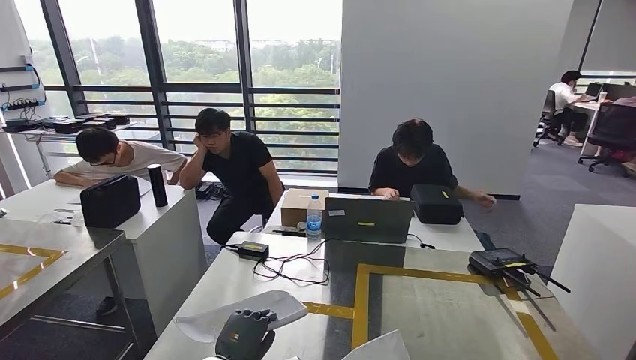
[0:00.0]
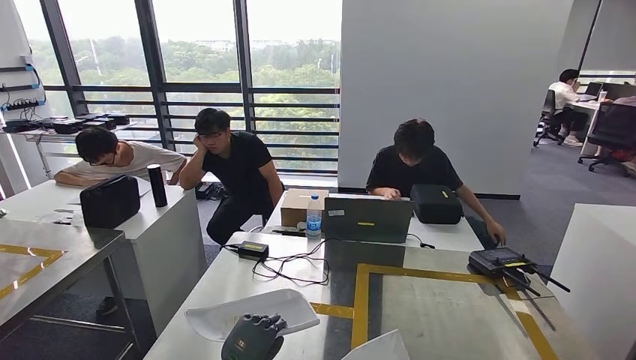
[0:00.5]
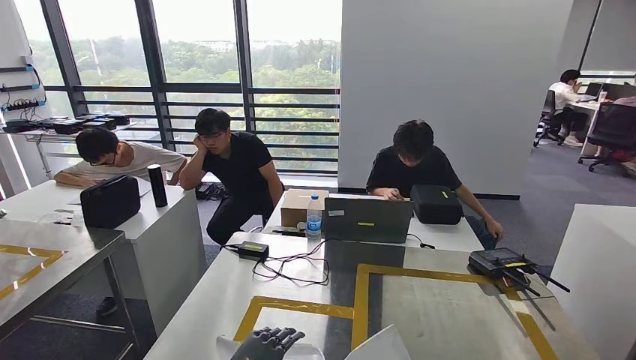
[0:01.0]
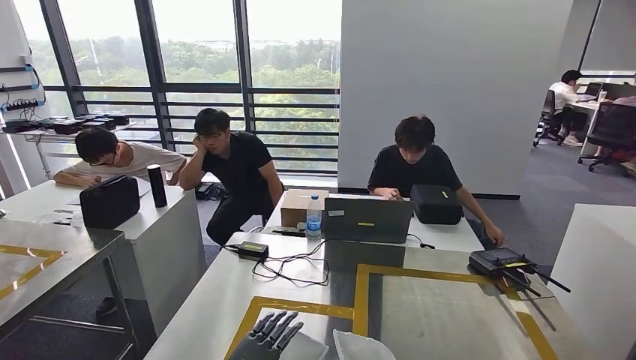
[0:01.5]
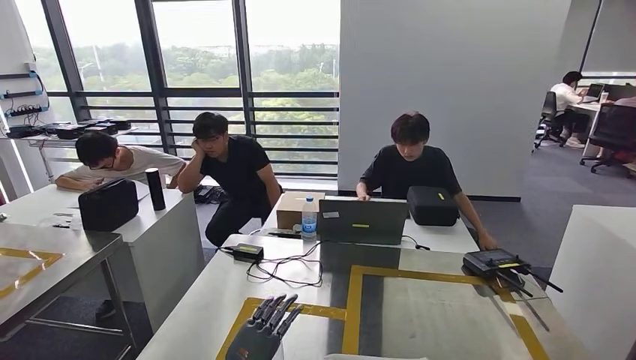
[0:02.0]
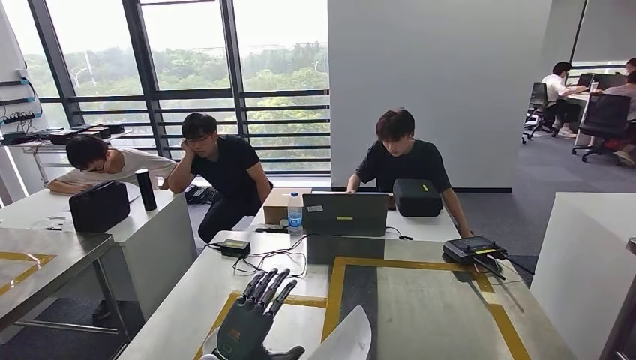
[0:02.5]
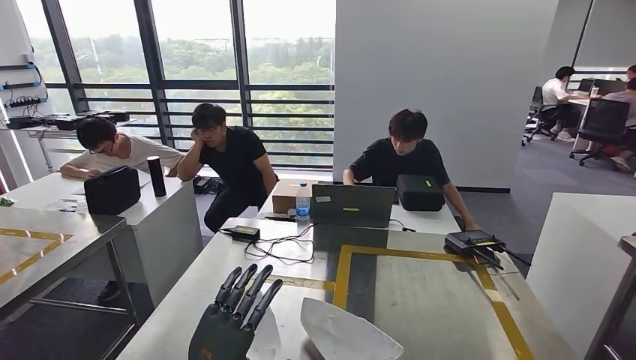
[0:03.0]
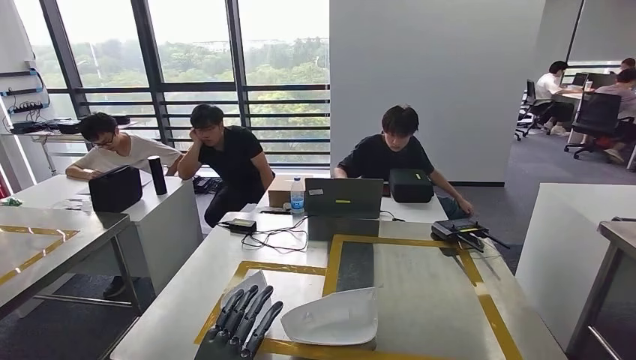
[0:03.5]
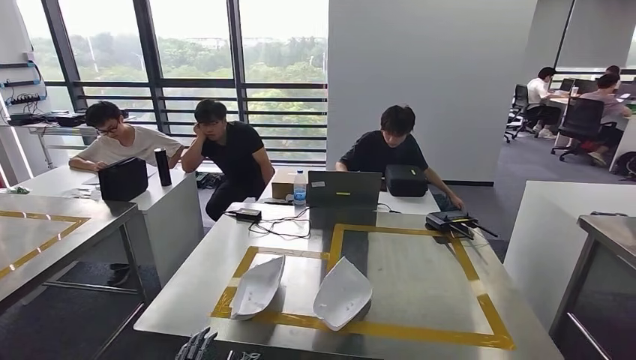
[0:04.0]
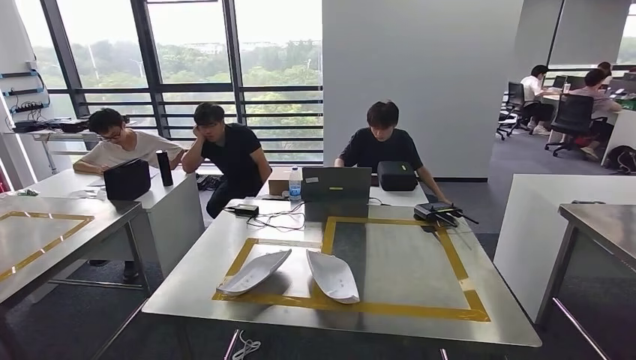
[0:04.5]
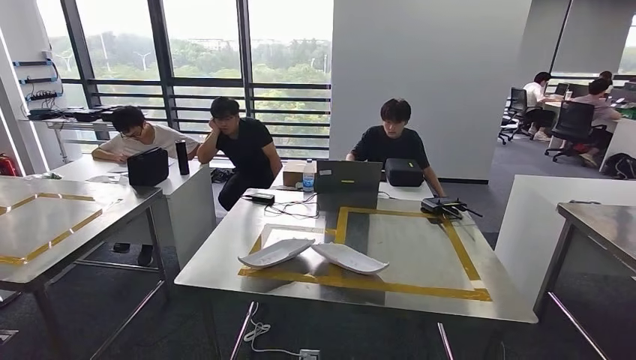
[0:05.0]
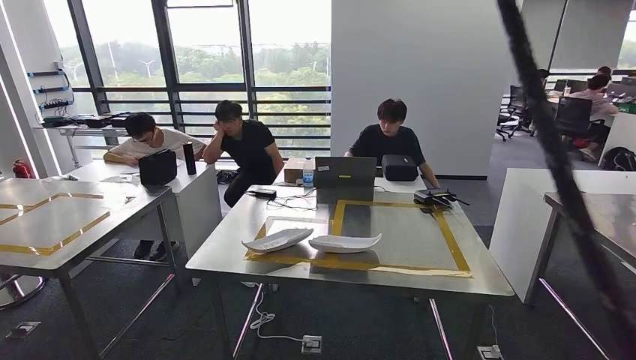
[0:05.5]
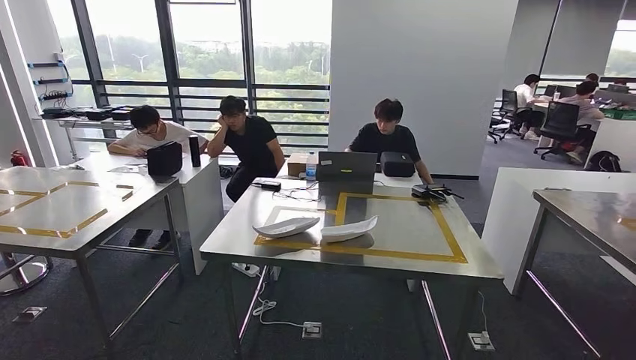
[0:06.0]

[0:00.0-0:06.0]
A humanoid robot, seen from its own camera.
Step, 0:00.0 to 0:02.5: Insert the small component into the corresponding slot on the workbench.
Step, 0:03.5 to 0:06.0: Return to the initial position at the workbench.
